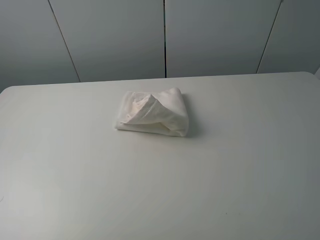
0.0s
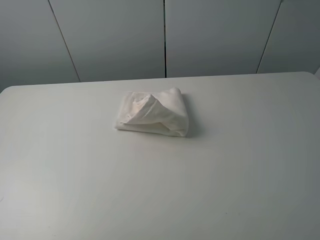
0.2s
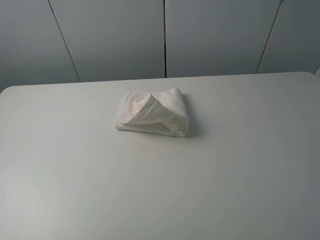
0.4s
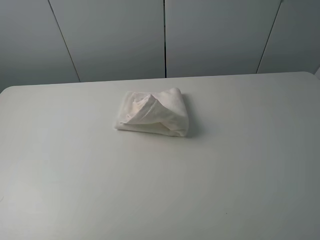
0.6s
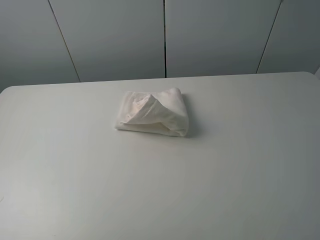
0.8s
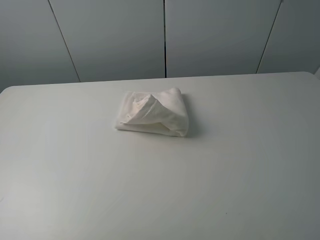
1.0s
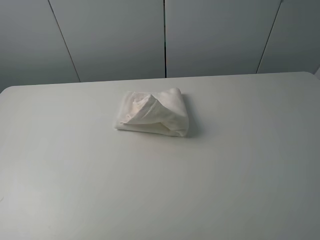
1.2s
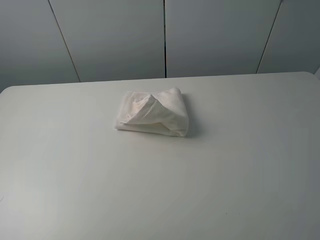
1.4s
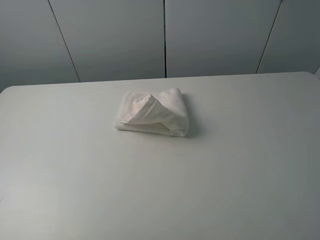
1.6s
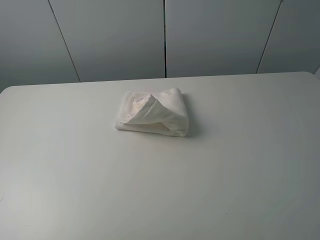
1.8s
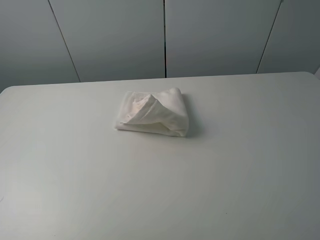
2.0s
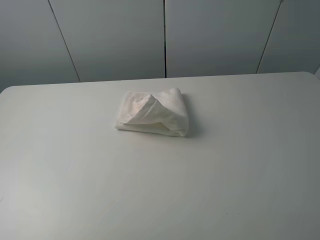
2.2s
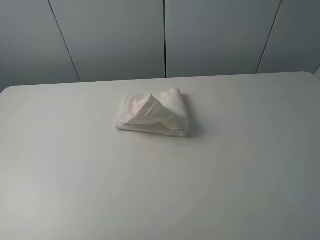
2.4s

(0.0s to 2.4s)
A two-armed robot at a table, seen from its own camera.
Task of the whole recording: fold the towels on the table.
0.0s - 2.4s: Both grippers stay put.

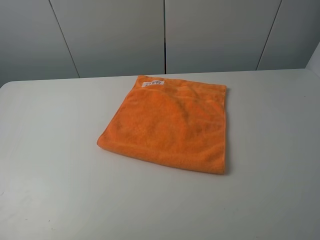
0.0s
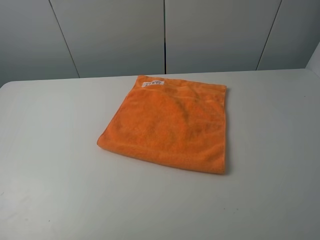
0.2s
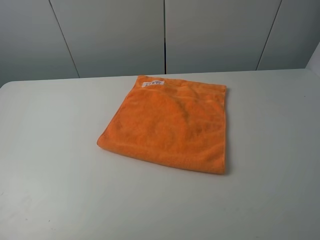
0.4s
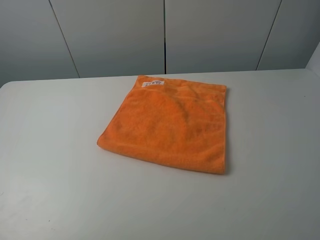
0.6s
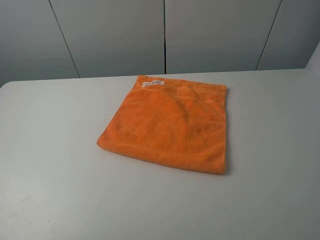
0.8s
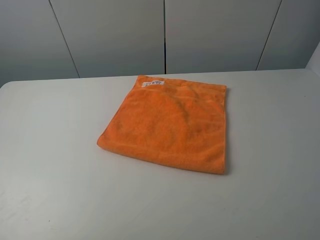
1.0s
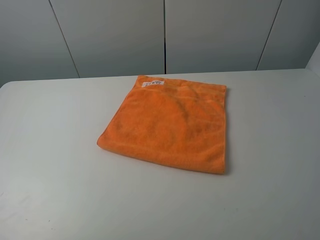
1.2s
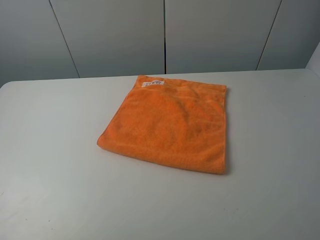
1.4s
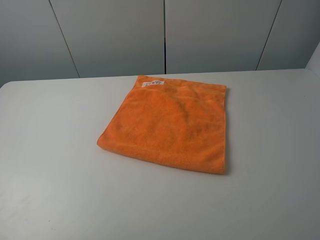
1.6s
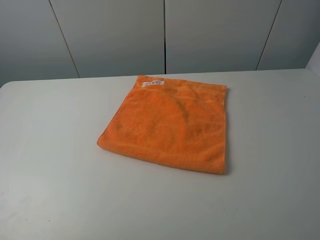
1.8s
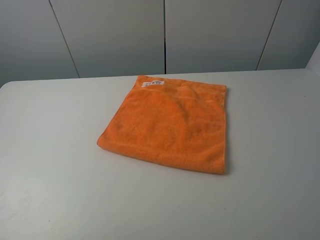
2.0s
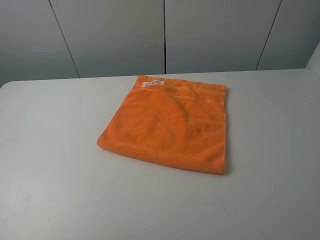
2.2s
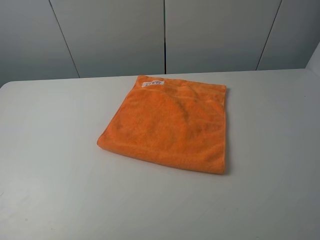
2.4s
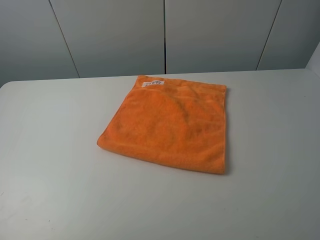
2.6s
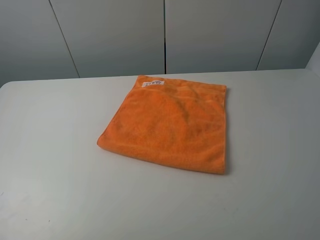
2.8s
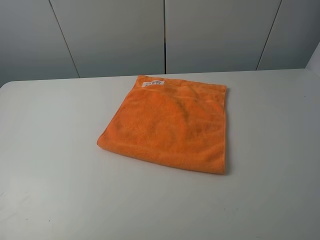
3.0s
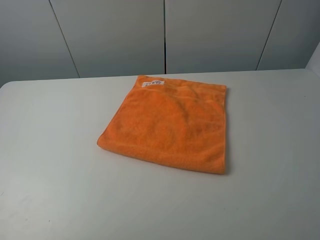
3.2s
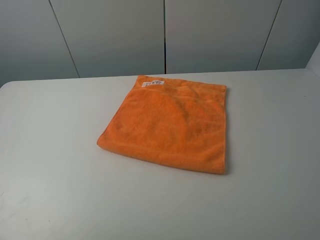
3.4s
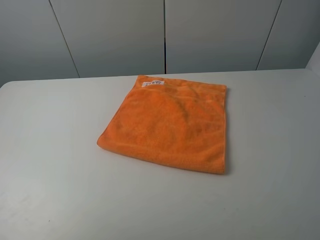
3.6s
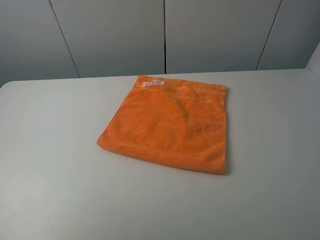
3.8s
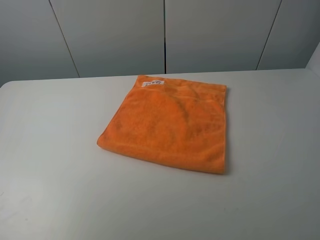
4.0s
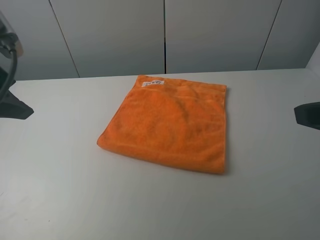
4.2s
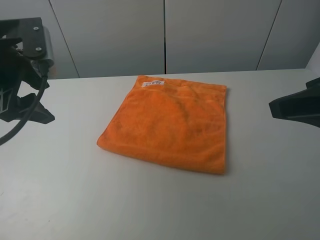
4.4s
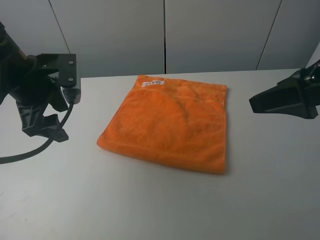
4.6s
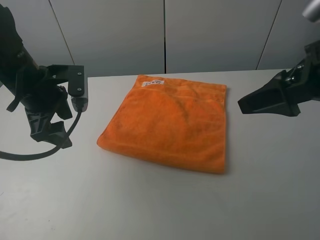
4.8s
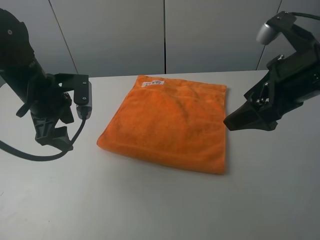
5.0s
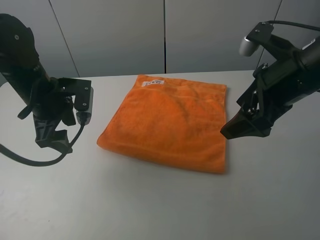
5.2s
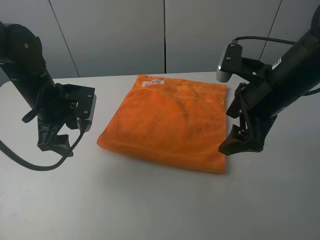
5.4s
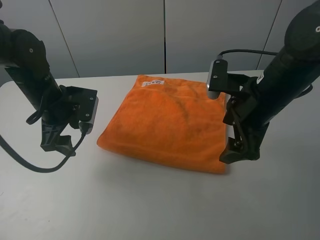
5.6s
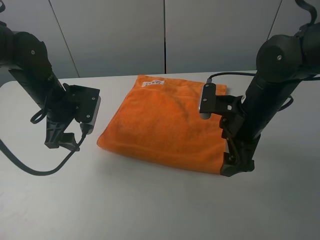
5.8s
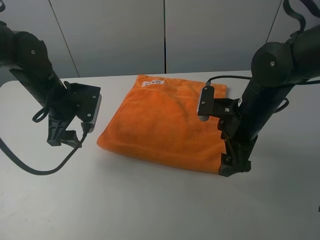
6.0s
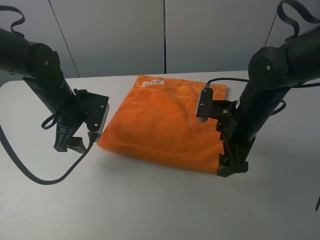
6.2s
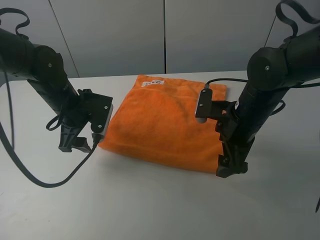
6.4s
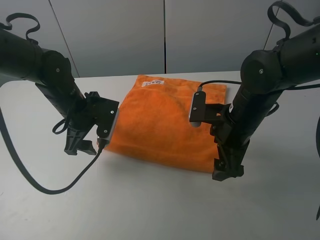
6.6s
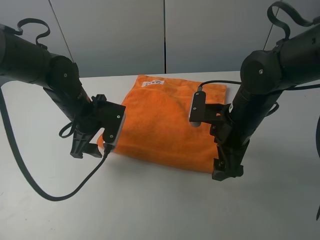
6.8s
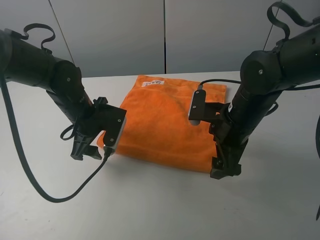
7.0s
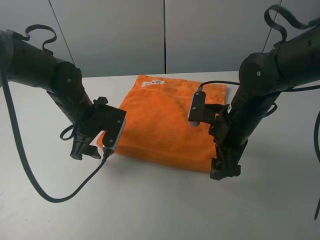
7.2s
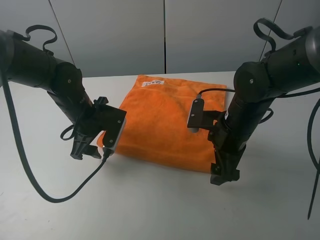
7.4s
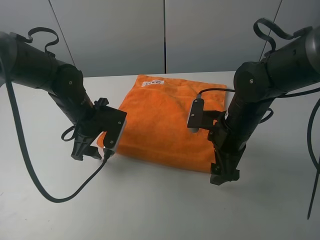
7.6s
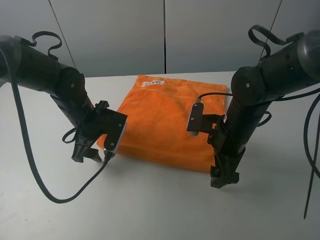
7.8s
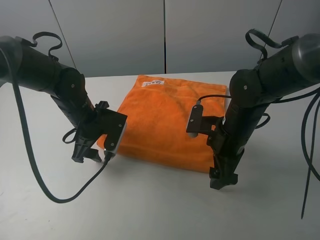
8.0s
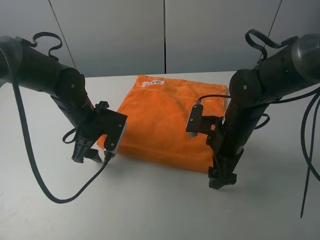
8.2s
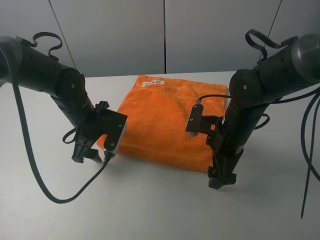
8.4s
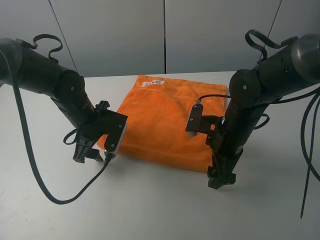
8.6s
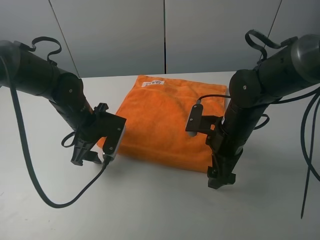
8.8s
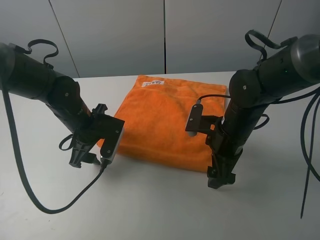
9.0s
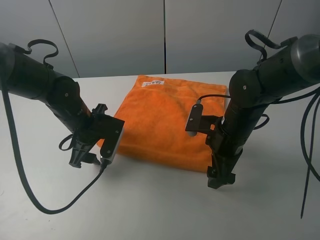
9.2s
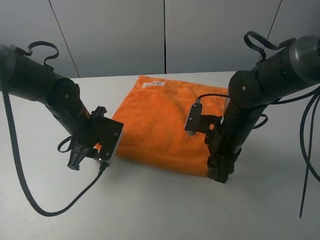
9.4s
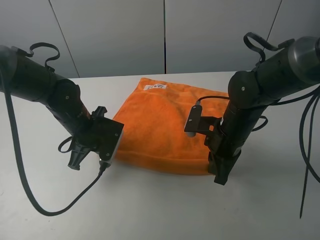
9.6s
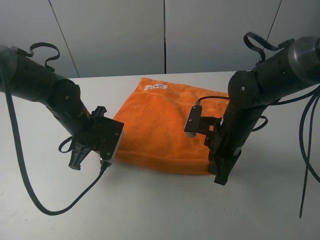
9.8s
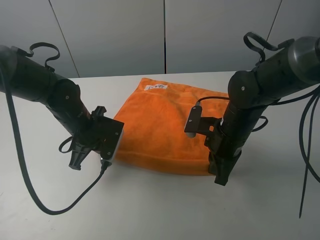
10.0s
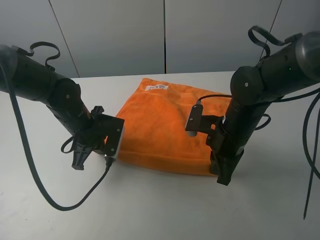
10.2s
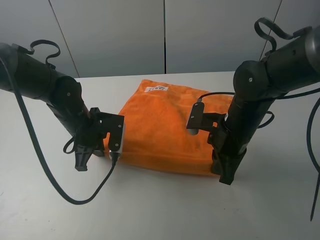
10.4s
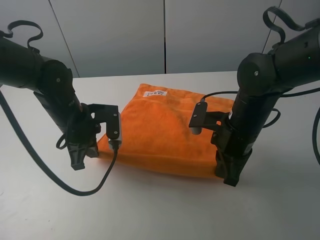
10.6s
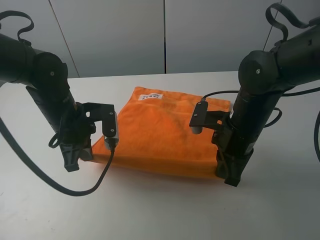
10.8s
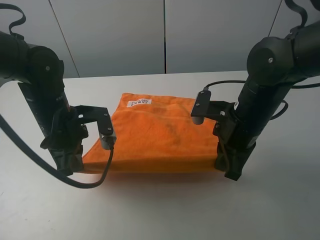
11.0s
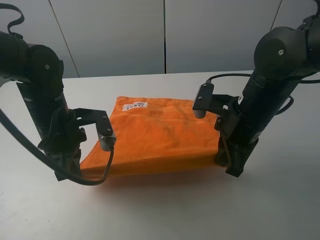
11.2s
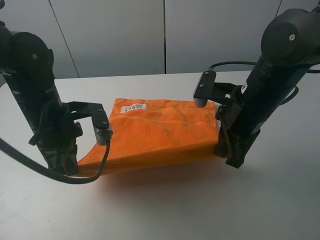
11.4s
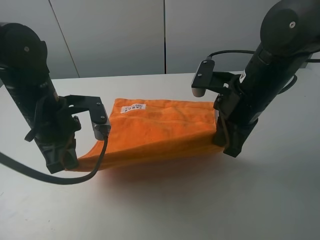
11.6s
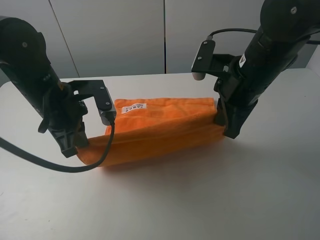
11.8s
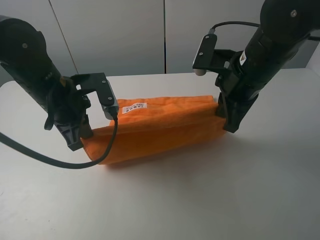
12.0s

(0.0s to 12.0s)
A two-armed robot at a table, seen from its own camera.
Task of the whole recording: fold the towels on the table.
Step, 0.0s - 9.8s: Grasp the orange towel with the left gripper.
0.0s - 1.6s: Both grippers stay about where they are.
3.0s - 4.4s: The right gripper moves forward, roughly 15 cm. Meanwhile the left gripper shifts about 25 cm forward.
4.4s - 6.0s: The left gripper is displaced downward and forward by approximately 15 cm. The right gripper heads downward, forward and to the left, covering about 20 cm.
6.0s - 7.6s: The left gripper shifts by roughly 5 cm.
7.6s - 9.0s: The grippers move only a little.
9.0s - 10.4s: The left gripper closes. Meanwhile the right gripper closes its fingers.
10.4s - 12.0s: Both grippers travel together upward, some 10 cm.

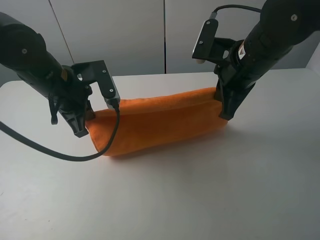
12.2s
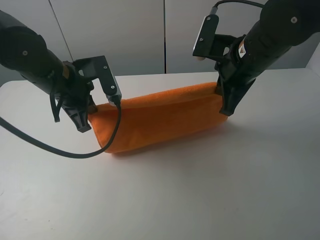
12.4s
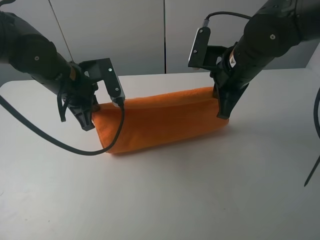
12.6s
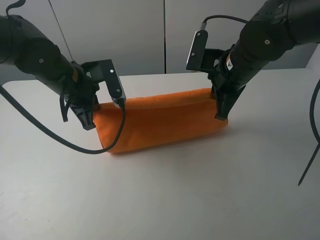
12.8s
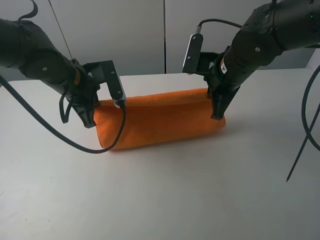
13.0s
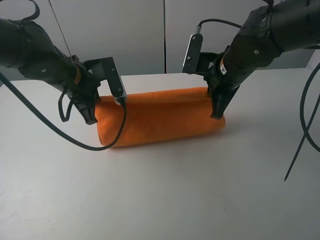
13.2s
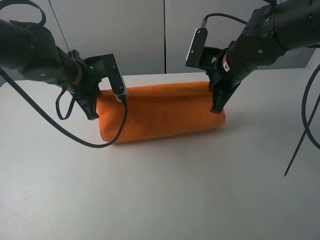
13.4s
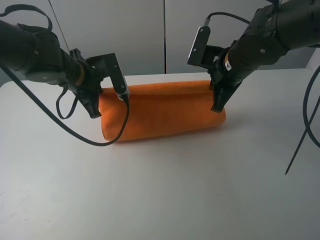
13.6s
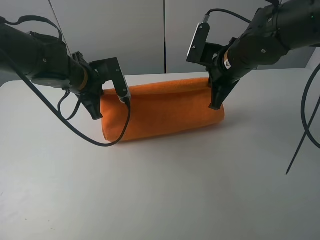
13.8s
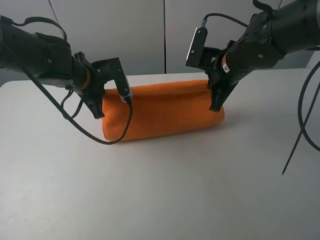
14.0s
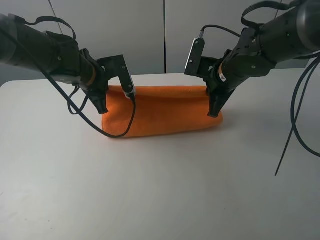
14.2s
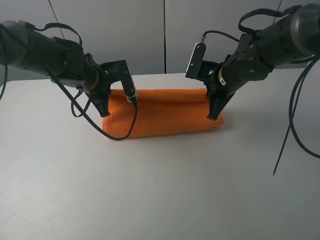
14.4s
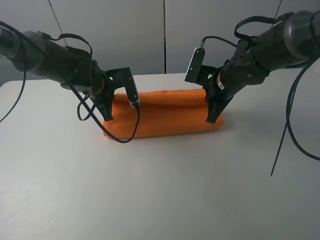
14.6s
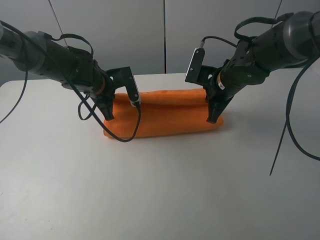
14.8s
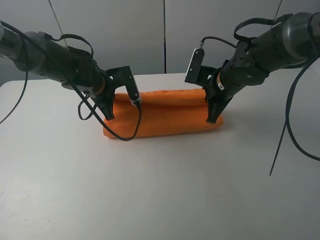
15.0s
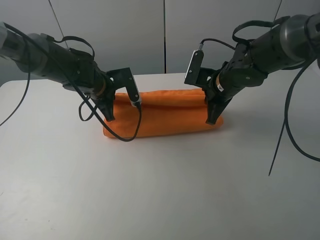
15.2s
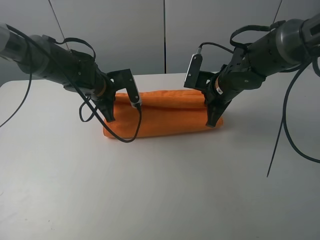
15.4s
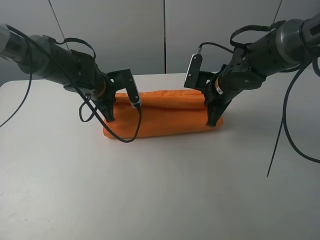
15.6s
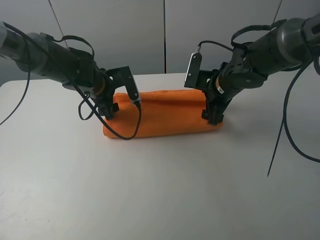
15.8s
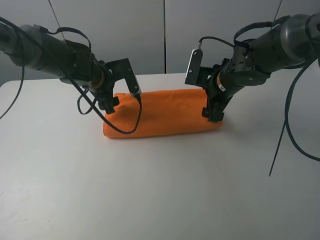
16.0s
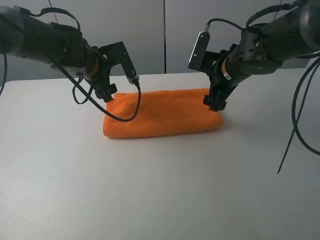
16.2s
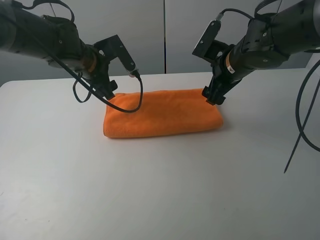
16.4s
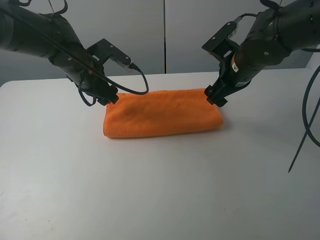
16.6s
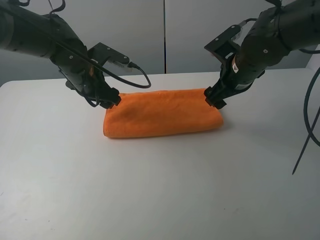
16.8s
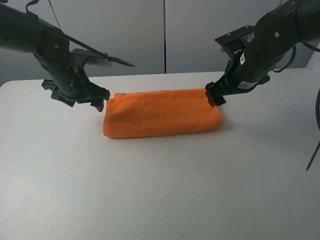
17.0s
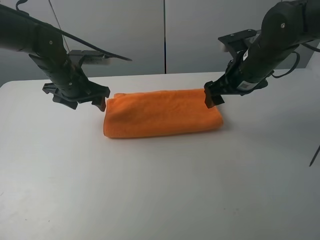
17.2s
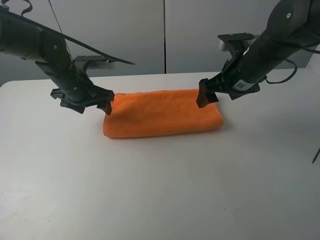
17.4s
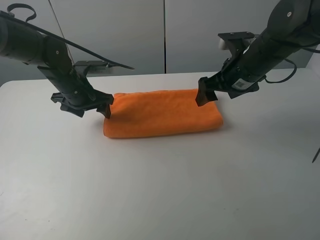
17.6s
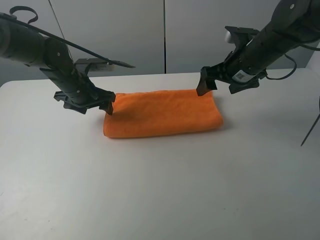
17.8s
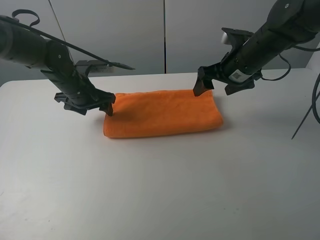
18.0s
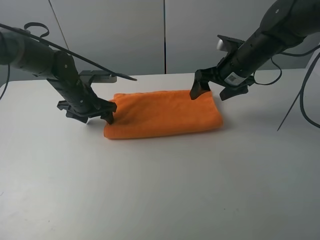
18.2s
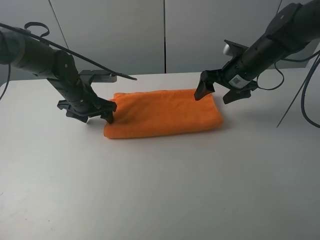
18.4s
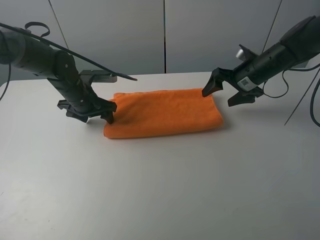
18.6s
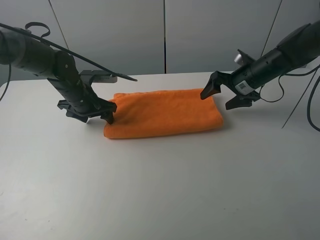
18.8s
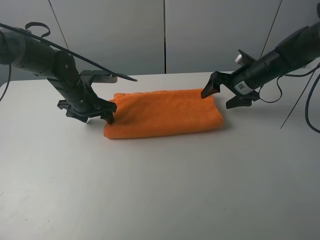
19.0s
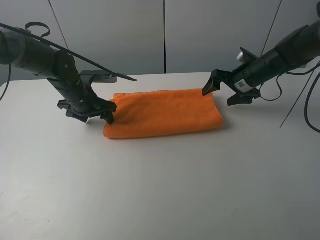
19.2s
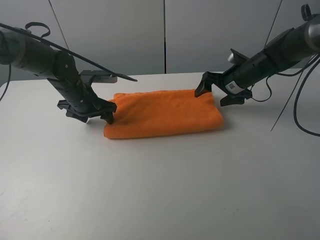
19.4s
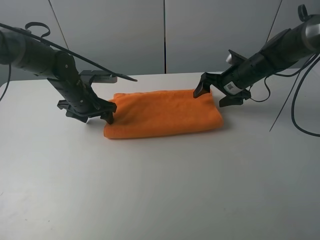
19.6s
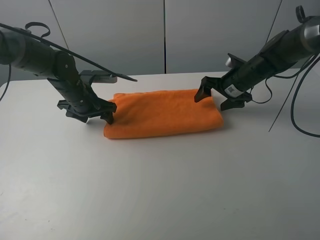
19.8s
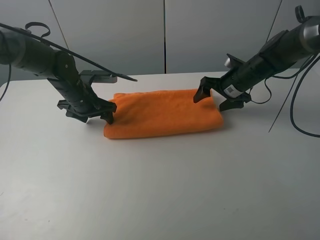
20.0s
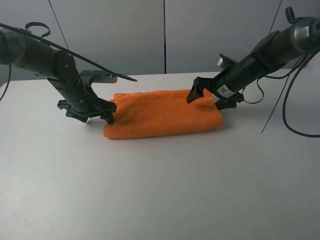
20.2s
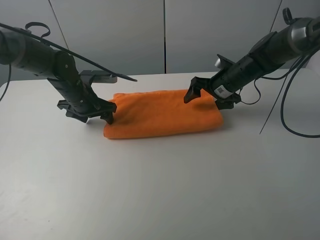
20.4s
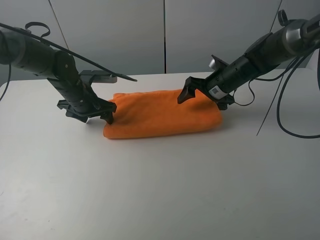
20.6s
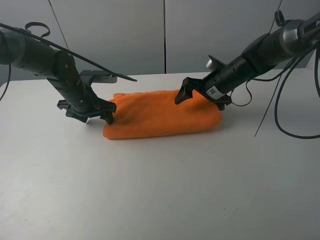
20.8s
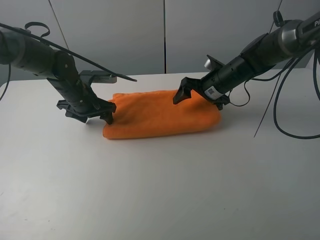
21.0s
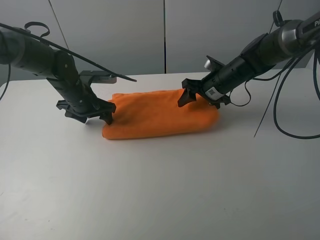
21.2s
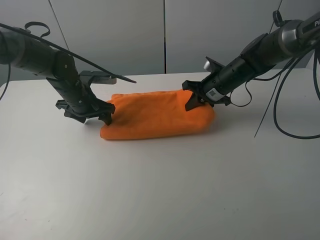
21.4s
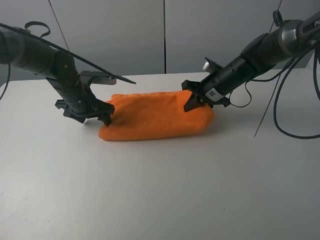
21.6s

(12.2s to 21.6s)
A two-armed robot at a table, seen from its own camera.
Task of the whole recording: fold the towels on the table.
Step, 12.2s - 16.2s: Fold the orange towel upwards with the right gripper.
Step, 16.4s - 18.4s: Press on the orange towel with the left gripper.
12.2s - 13.8s: The two grippers go about 5 cm forward.
13.8s - 15.4s: The right gripper shifts approximately 5 cm downward. The left gripper moves approximately 5 cm.
15.4s - 17.0s: The left gripper ends up about 5 cm from where it was, and opens, while the right gripper heads upward, covering approximately 5 cm, and opens.
17.0s - 18.4s: The right gripper shifts roughly 5 cm forward; the left gripper shifts some 5 cm downward.
18.4s - 20.0s: The right gripper ends up approximately 5 cm from where it was.
20.0s - 21.6s: The right gripper closes up.
